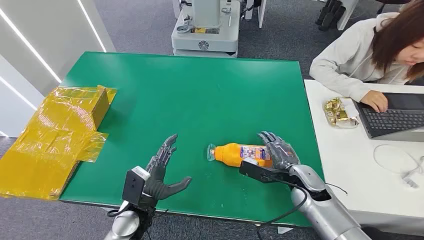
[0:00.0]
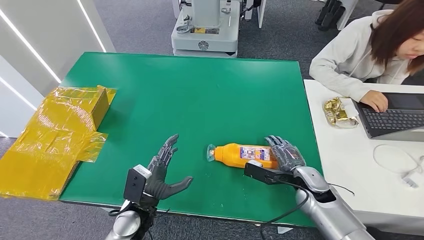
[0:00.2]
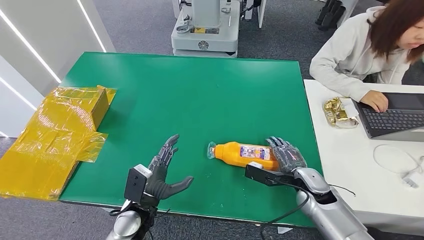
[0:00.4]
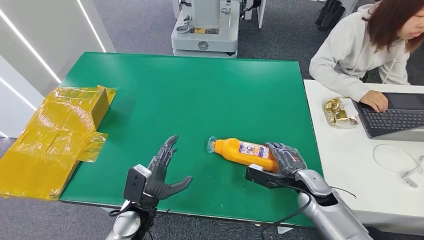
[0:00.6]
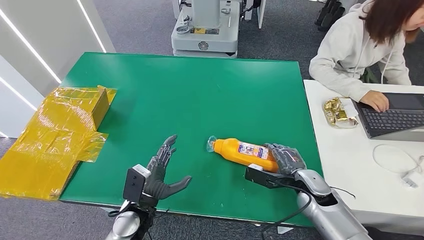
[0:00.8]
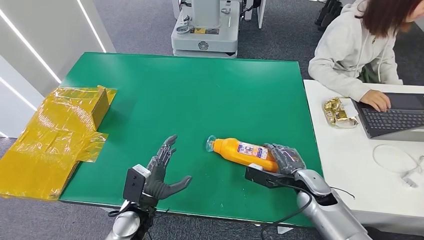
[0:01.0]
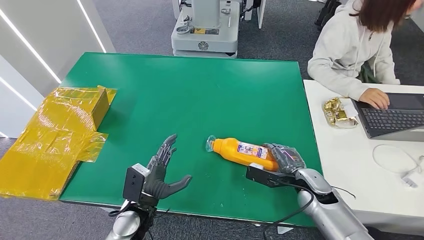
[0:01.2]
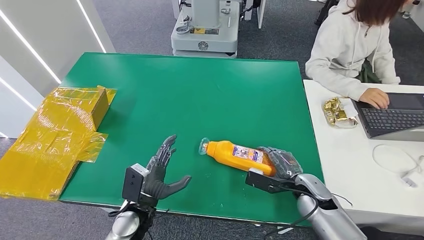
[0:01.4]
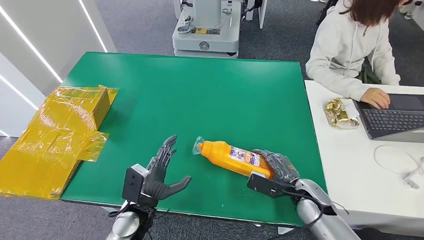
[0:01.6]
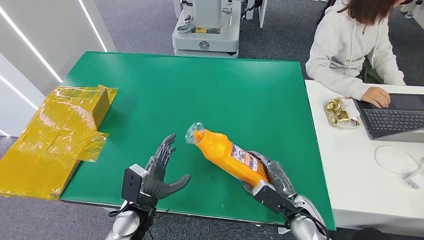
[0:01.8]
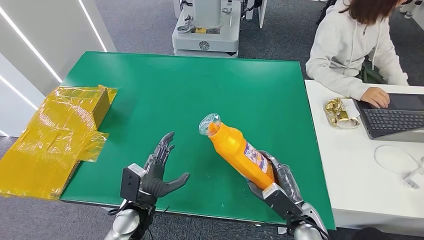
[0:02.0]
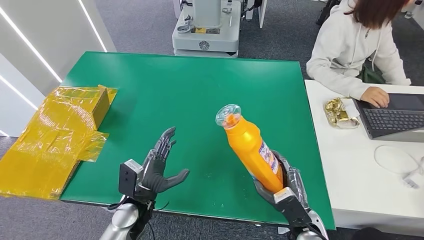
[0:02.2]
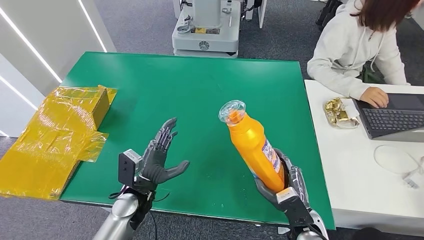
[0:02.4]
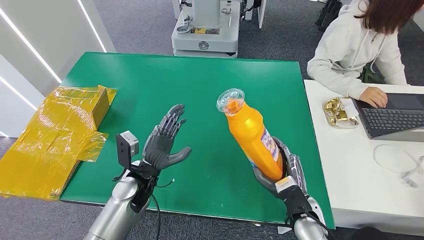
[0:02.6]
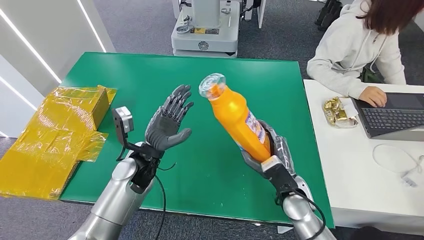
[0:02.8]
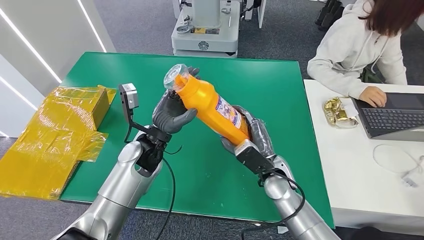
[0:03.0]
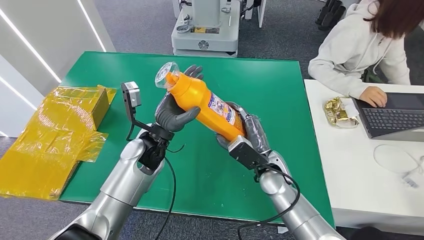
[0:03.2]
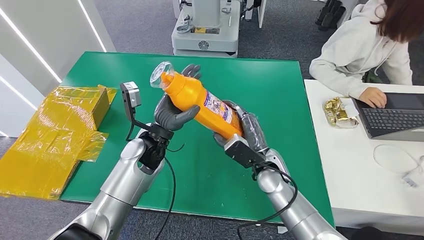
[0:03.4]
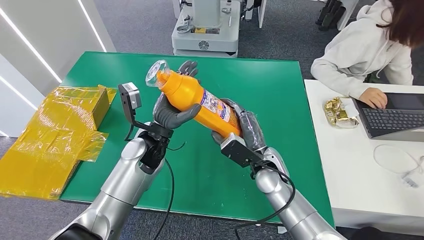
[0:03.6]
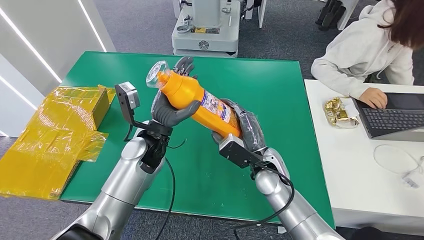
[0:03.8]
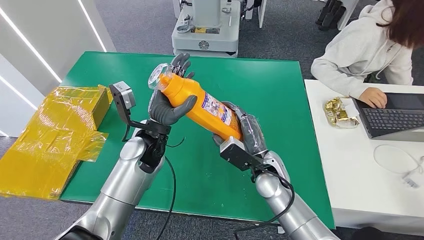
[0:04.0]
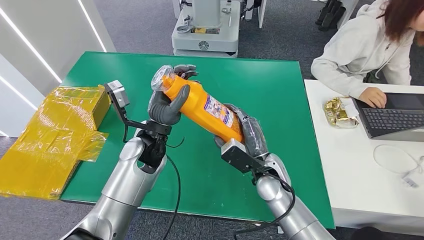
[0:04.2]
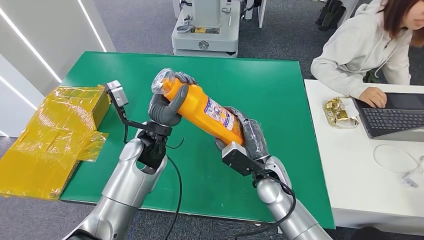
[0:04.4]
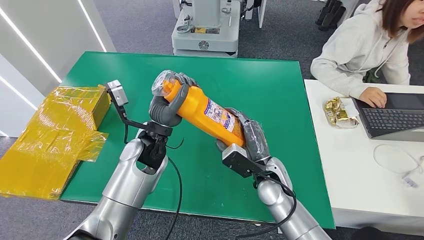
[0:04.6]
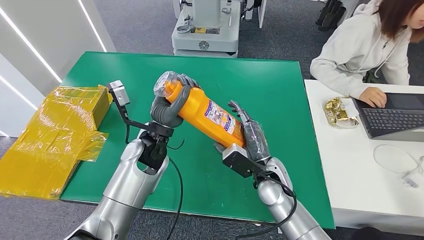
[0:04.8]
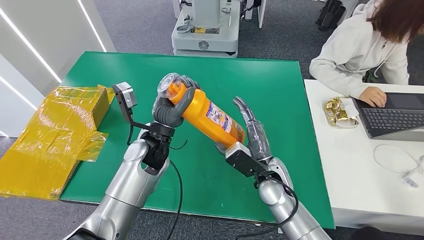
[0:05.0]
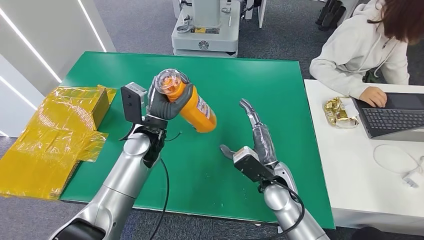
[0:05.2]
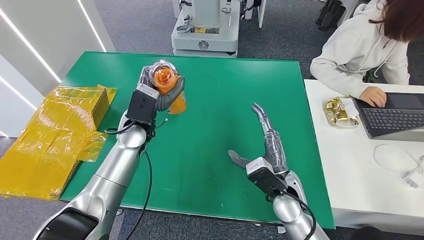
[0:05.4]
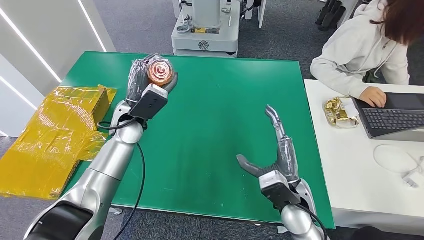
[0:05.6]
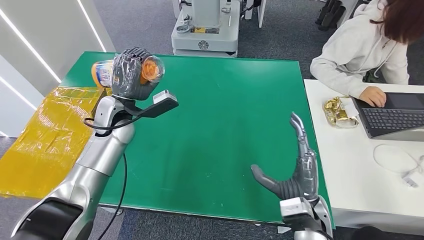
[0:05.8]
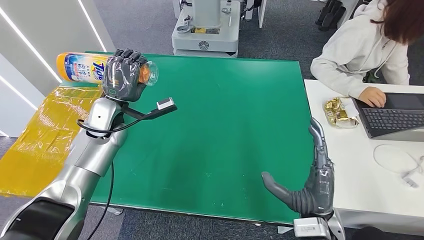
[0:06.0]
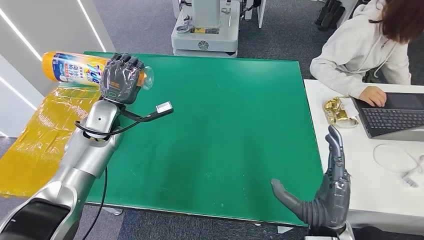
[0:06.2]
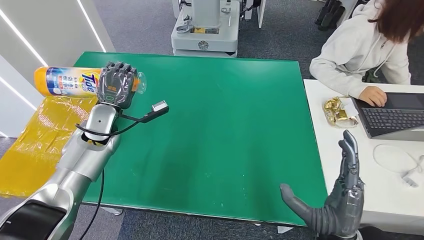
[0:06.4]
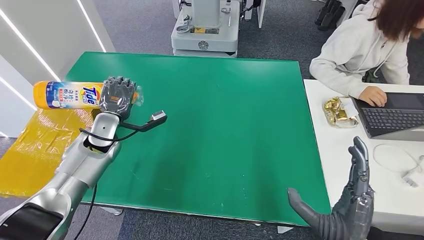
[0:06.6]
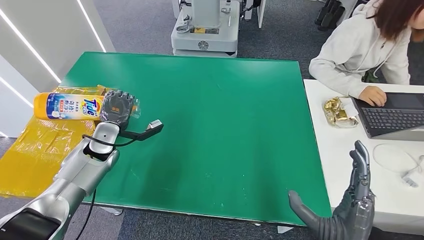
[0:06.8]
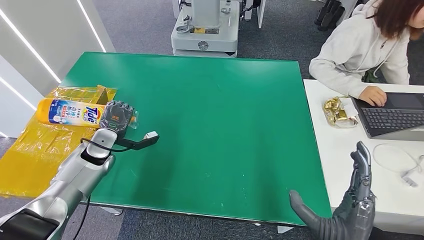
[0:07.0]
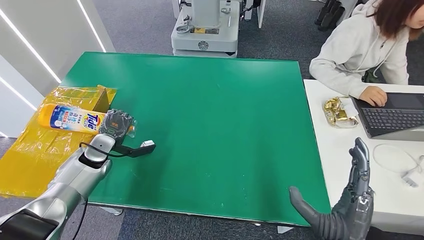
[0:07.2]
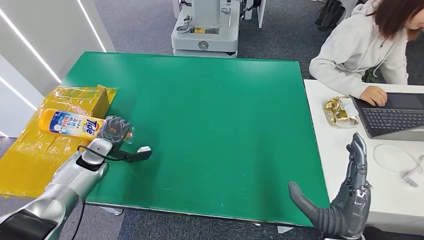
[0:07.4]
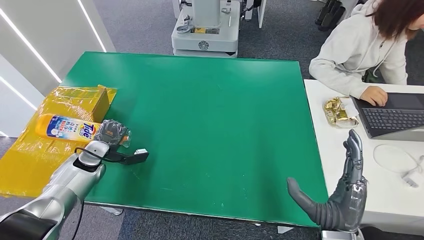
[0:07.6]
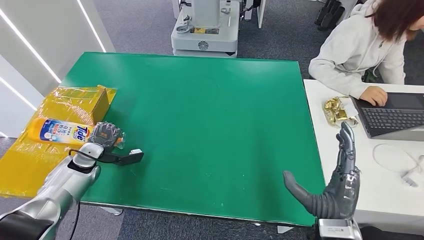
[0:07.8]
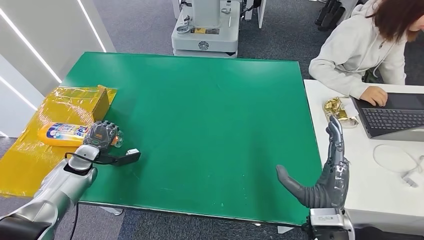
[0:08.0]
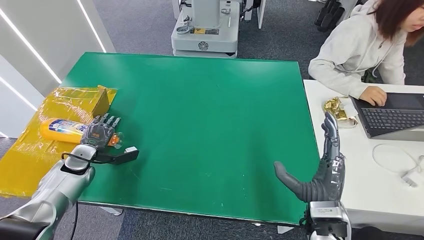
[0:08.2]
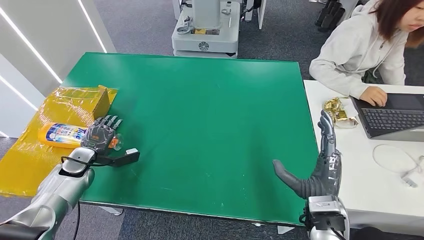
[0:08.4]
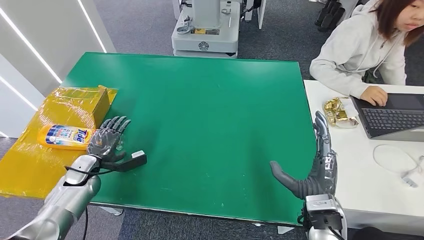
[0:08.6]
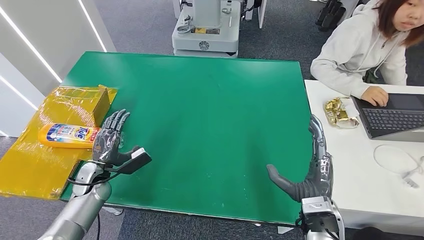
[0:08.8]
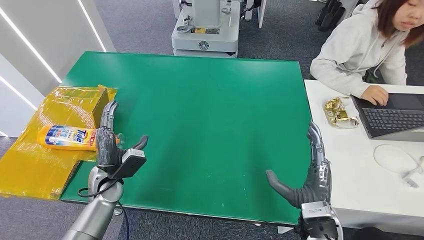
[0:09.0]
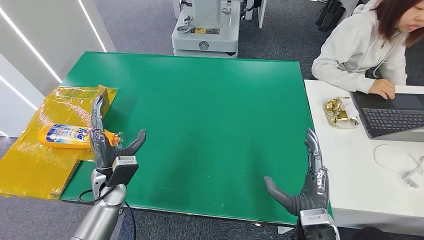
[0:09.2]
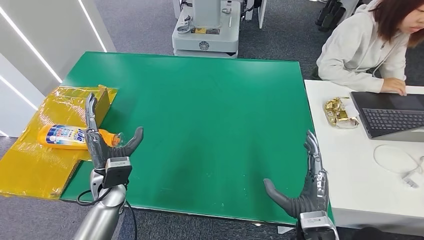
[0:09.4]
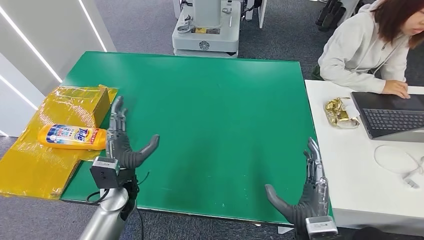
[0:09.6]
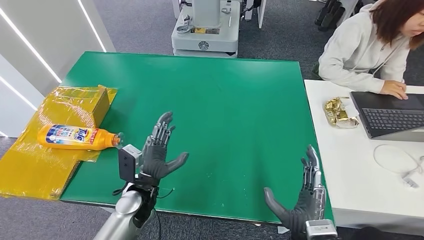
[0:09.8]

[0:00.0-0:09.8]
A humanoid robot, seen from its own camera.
Step, 0:00.0 to 0:03.8: Pick up the bottle from the table.
Step, 0:04.0 to 0:09.8: Turn the bottle to the front side.
0:01.4 to 0:02.8: The left hand shifts some 15 cm forward and upward. The right hand shifts roughly 5 cm to the left, and reaches approximately 10 cm backward, then returns.
0:02.8 to 0:04.2: The right hand travels to the left by about 5 cm. Meanwhile the left hand shifts approximately 5 cm upward.
0:07.0 to 0:08.4: The left hand travels to the left and downward by about 10 cm; the right hand is displaced forward by approximately 10 cm.
0:08.4 to 0:09.8: The right hand travels backward and downward by roughly 10 cm. The left hand heads to the right, covering some 25 cm.

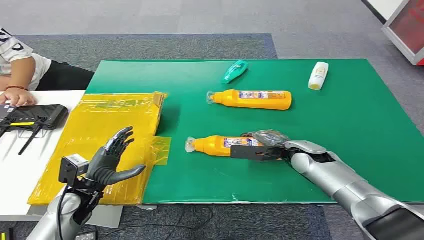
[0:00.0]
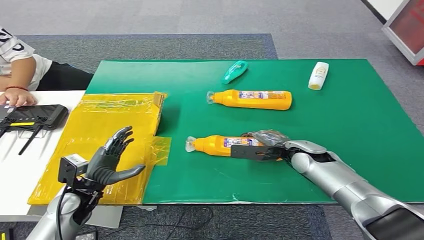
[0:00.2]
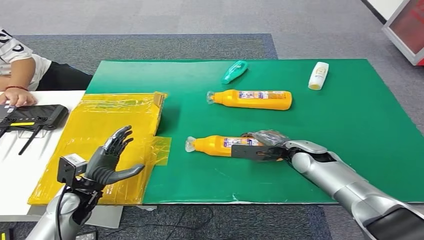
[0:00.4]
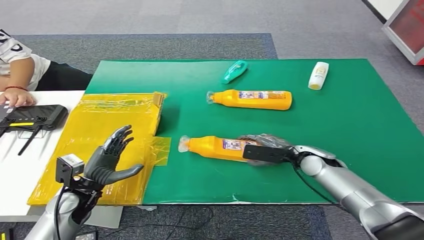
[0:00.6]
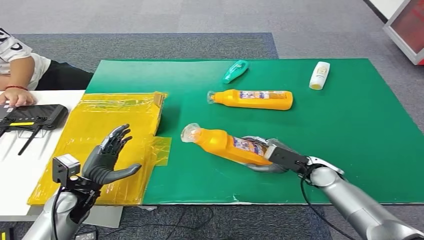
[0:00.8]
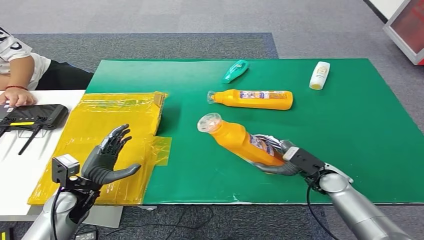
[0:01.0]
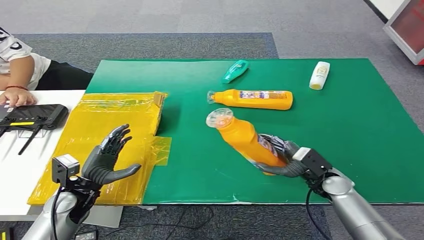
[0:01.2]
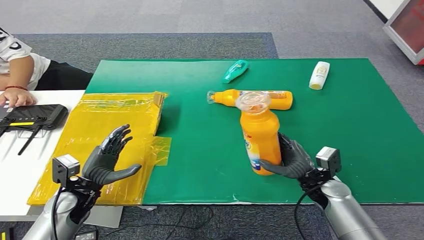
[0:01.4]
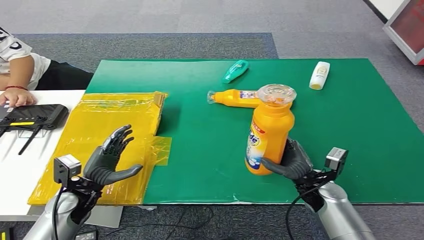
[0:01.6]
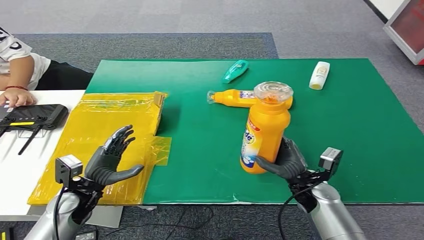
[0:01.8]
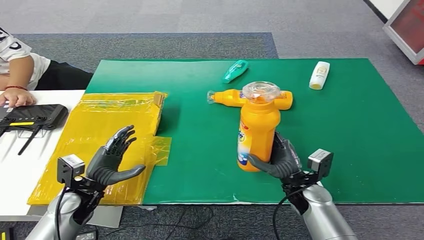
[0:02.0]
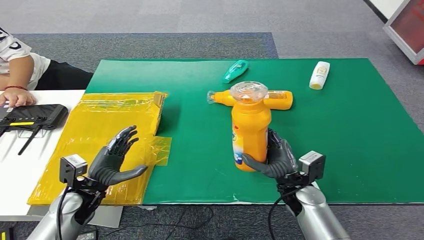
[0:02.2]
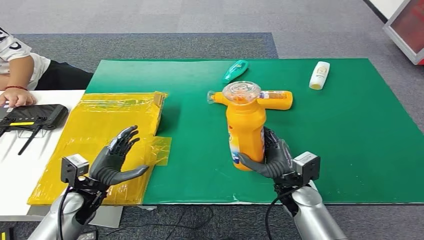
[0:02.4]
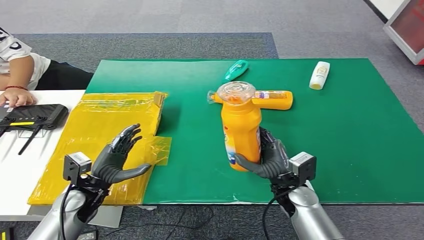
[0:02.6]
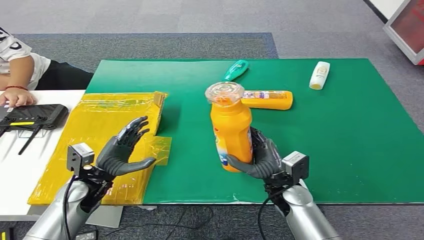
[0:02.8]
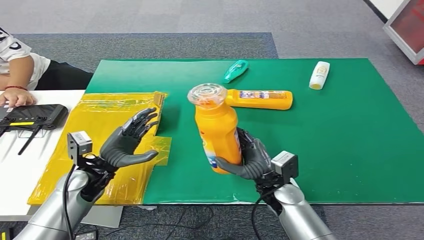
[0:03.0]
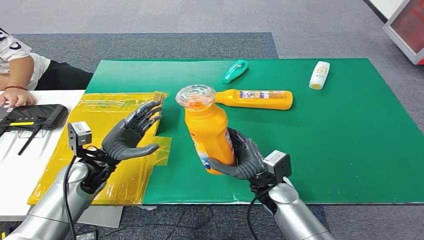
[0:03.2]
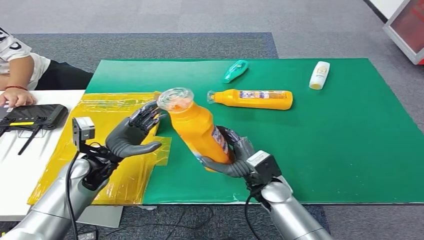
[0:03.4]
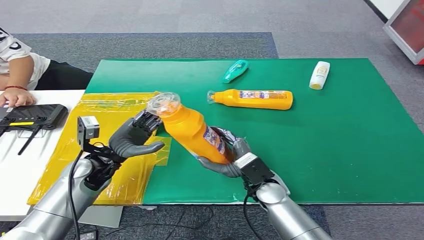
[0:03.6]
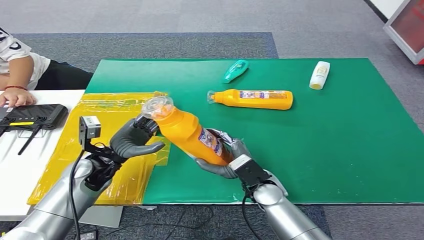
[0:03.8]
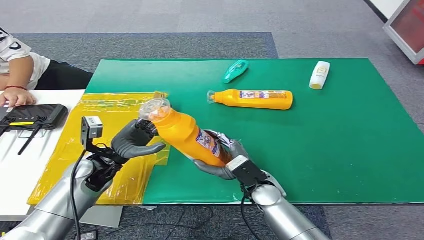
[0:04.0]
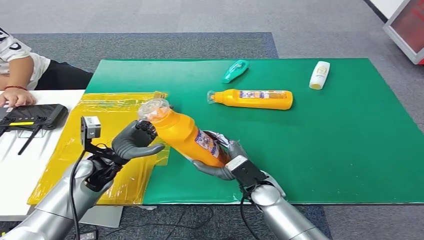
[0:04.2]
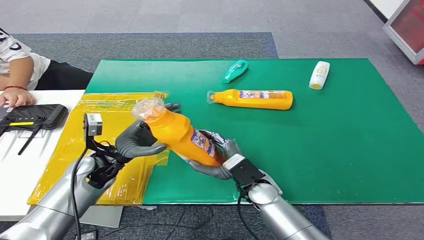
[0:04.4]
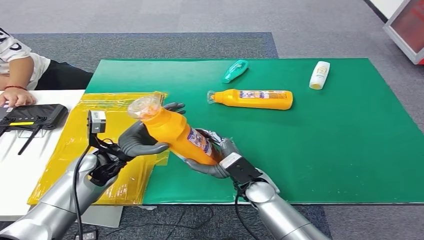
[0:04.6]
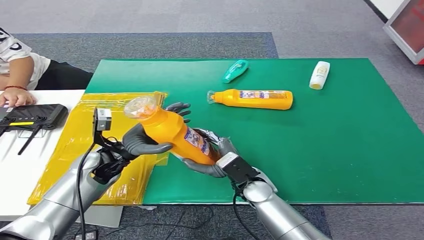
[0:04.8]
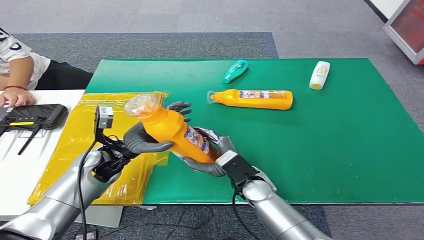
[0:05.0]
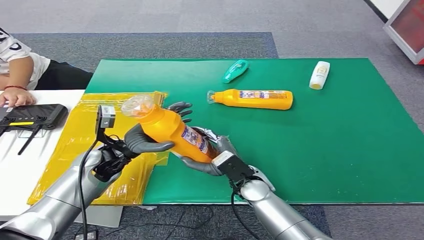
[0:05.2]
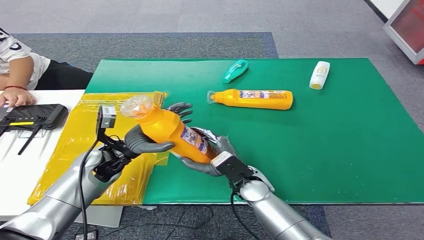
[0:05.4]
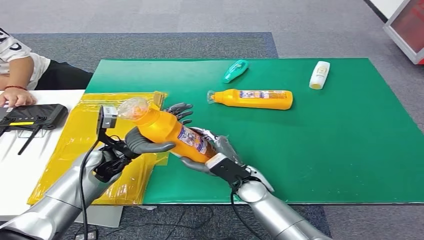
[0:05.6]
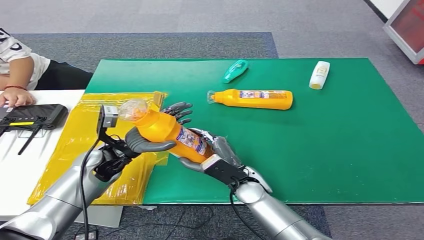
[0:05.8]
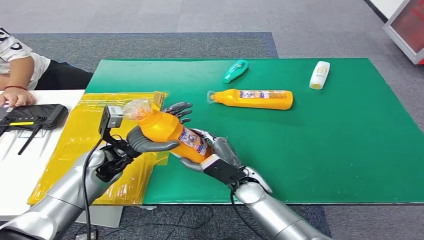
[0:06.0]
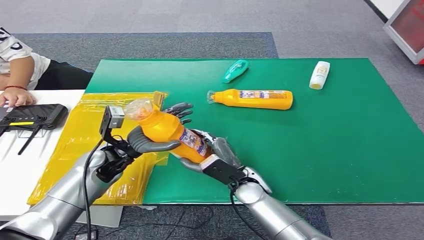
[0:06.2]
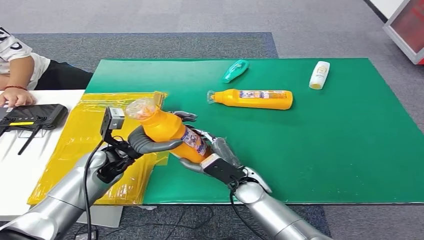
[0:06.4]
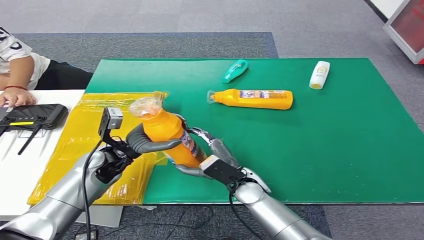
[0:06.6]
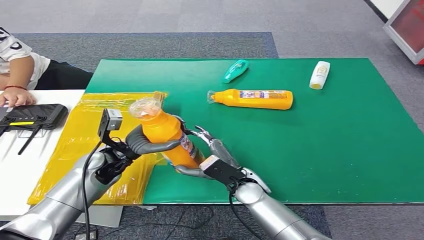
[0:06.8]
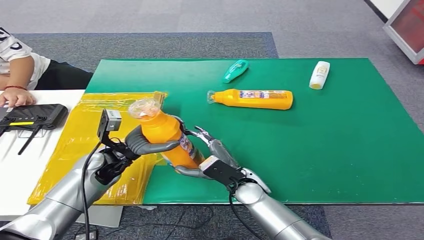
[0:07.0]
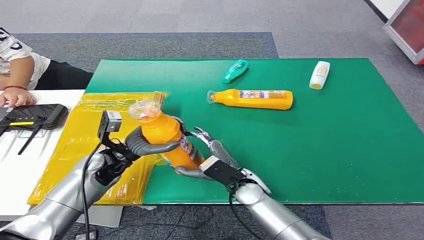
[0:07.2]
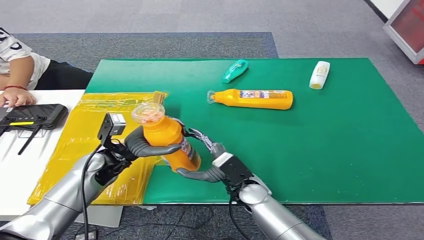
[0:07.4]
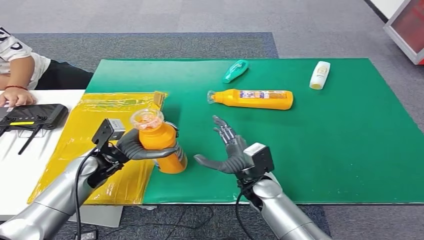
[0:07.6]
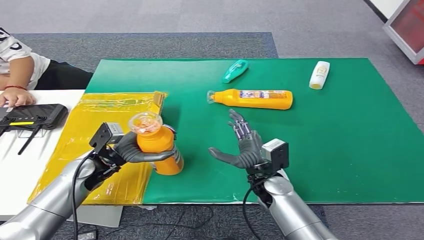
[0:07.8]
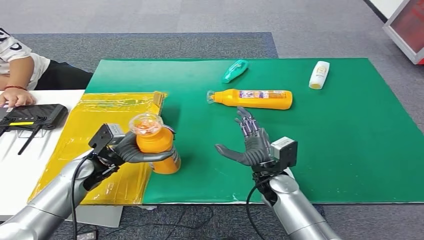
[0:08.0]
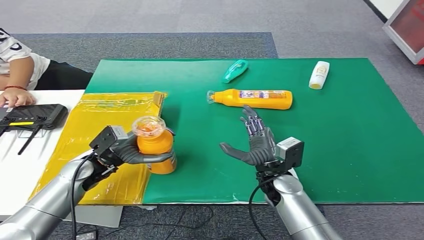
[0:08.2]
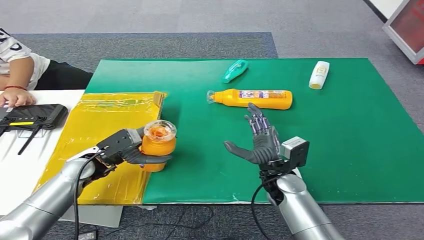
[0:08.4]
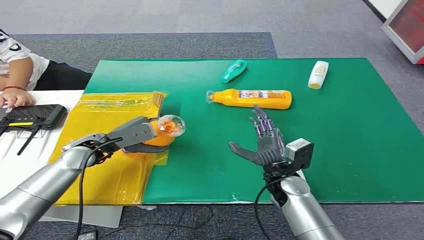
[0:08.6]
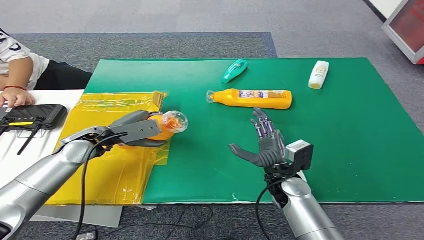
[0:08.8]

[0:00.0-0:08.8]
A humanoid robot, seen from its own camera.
Step, 0:00.0 to 0:03.0: Pick up the bottle from the table.
0:01.4 to 0:03.0: The left hand ends up some 5 cm from where it was; the right hand shifts roughly 10 cm to the left.
0:03.0 to 0:04.4: The hands stay close to where they were, moving slightly.
0:04.4 to 0:07.4: The hands make only small movements.
0:07.4 to 0:08.8: The left hand ends up about 5 cm from where it was. The right hand travels to the right by some 5 cm.
